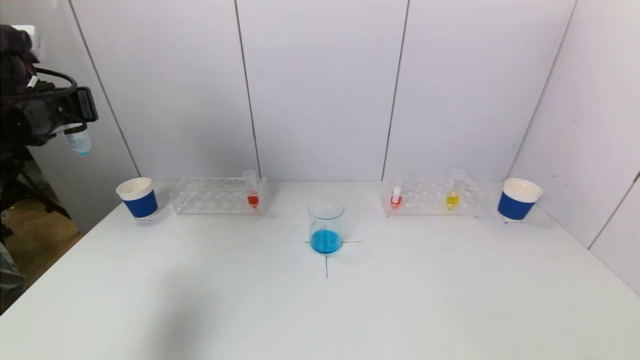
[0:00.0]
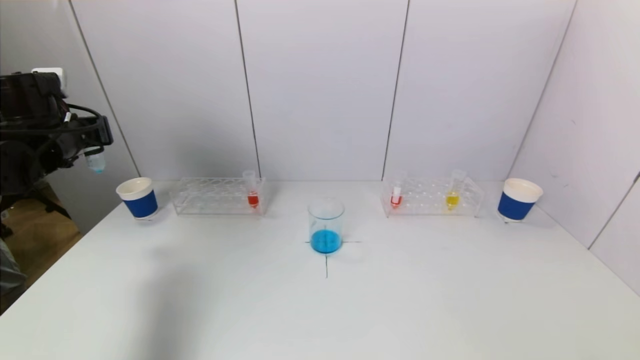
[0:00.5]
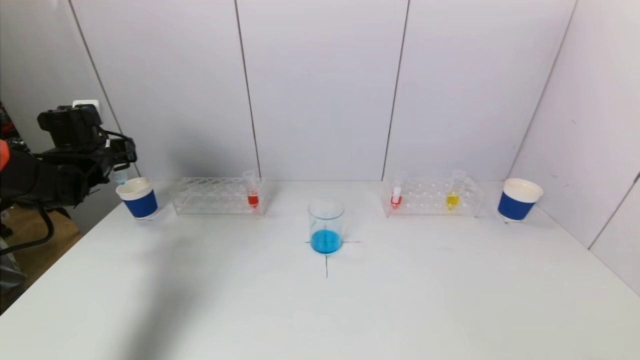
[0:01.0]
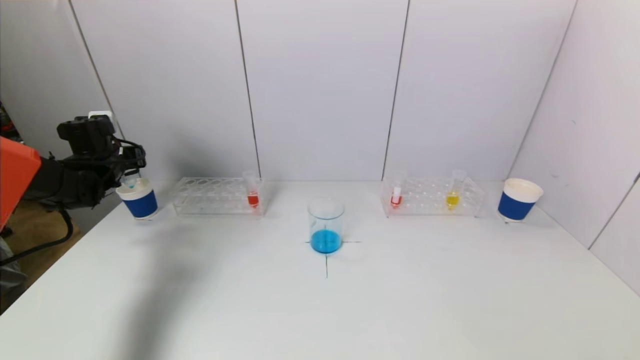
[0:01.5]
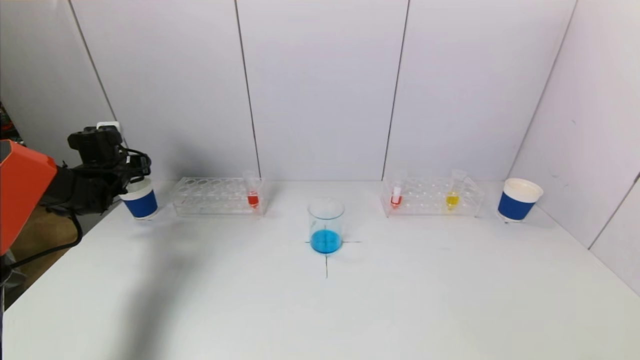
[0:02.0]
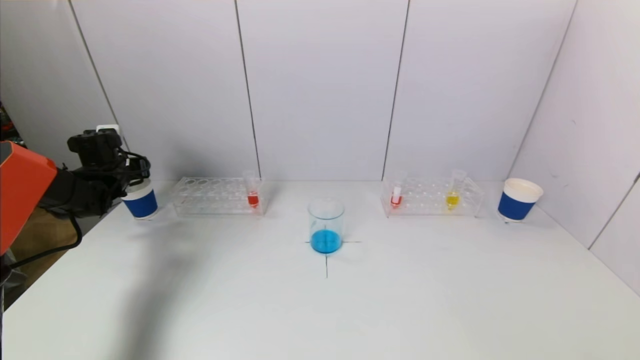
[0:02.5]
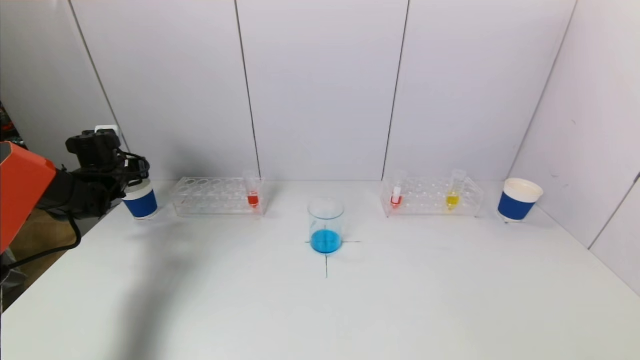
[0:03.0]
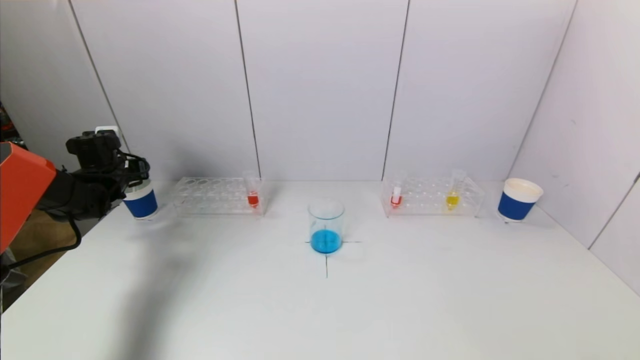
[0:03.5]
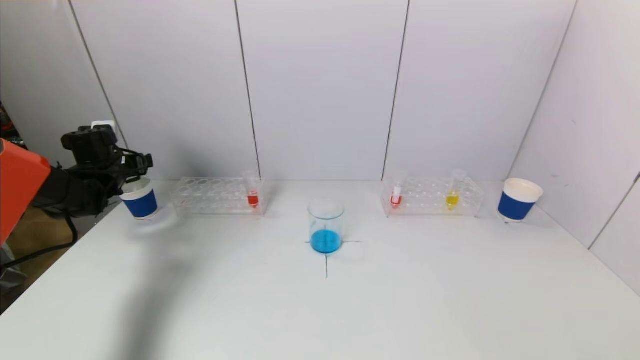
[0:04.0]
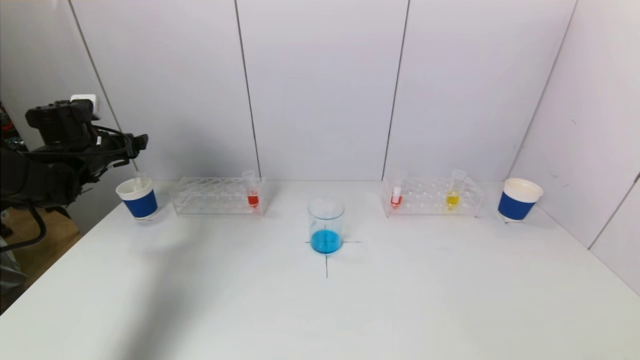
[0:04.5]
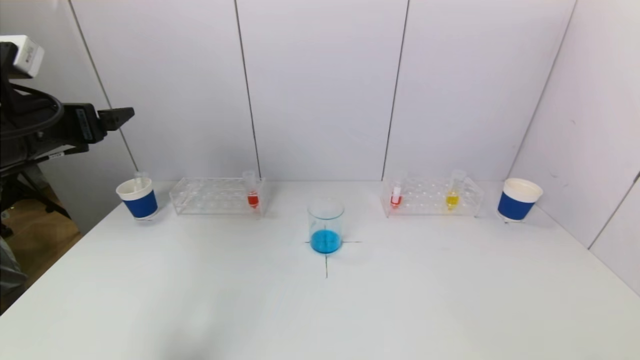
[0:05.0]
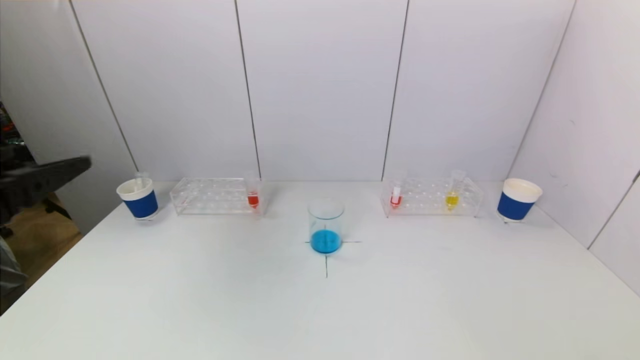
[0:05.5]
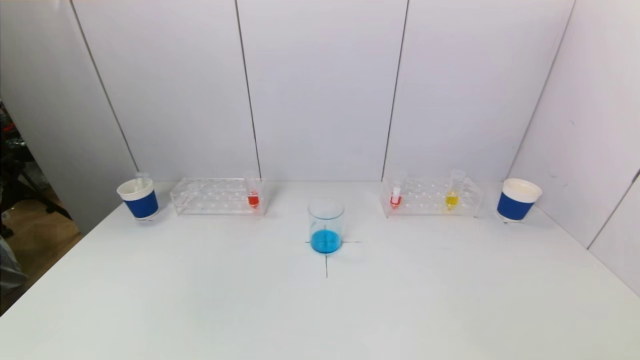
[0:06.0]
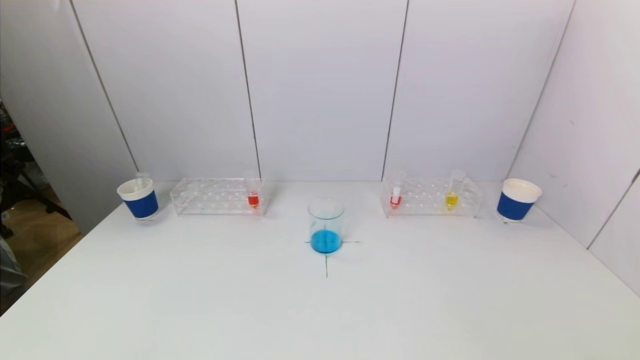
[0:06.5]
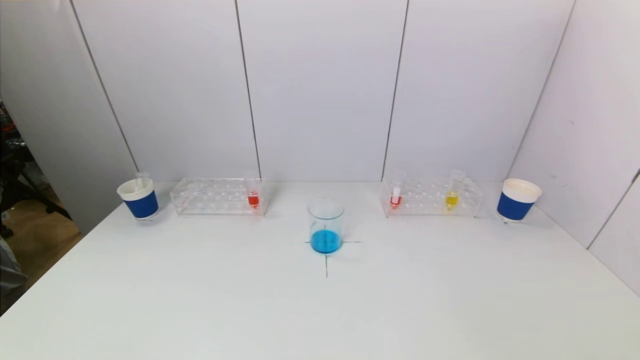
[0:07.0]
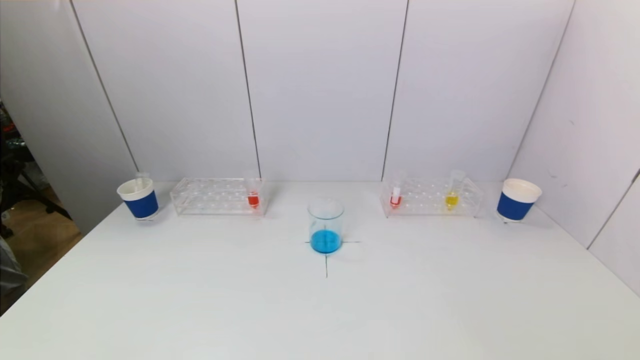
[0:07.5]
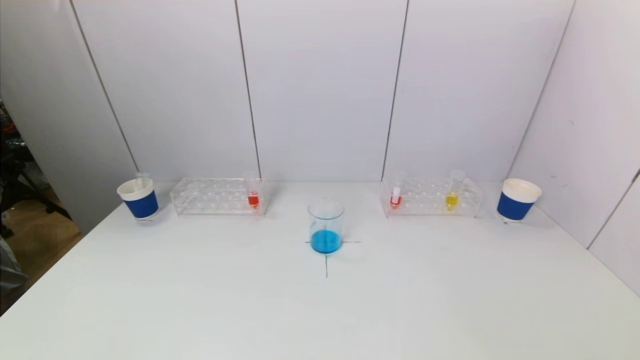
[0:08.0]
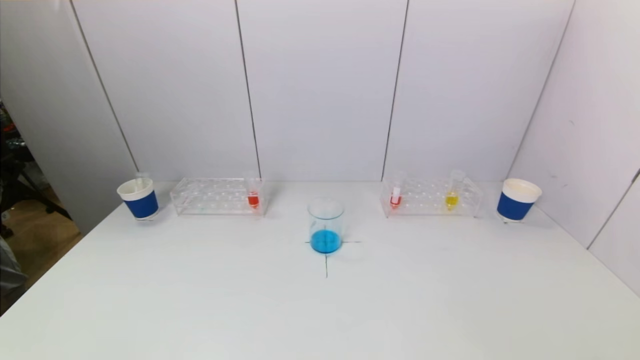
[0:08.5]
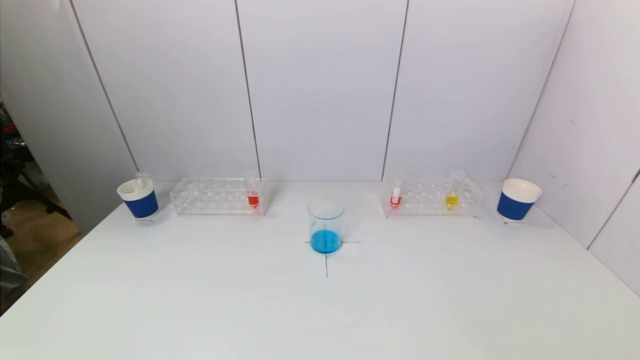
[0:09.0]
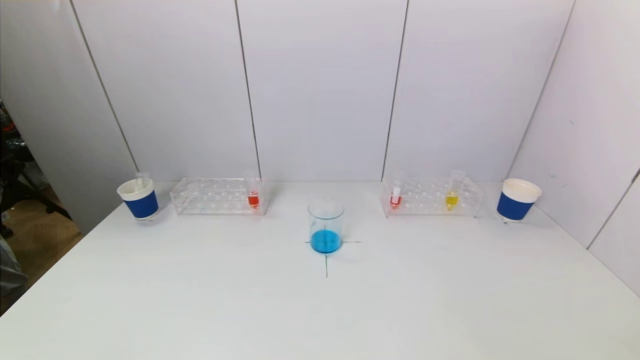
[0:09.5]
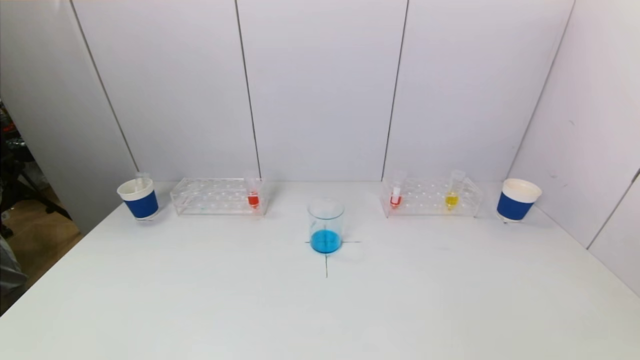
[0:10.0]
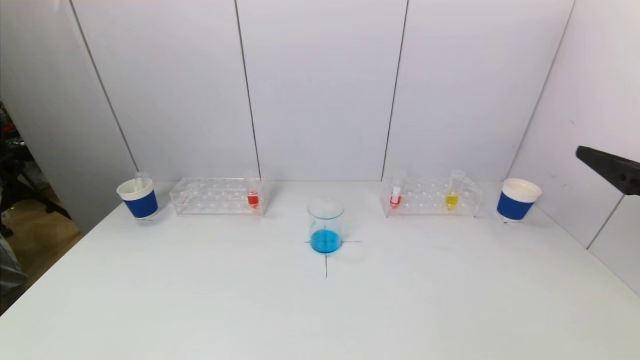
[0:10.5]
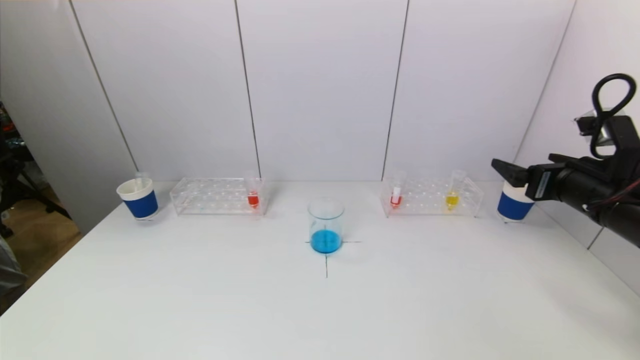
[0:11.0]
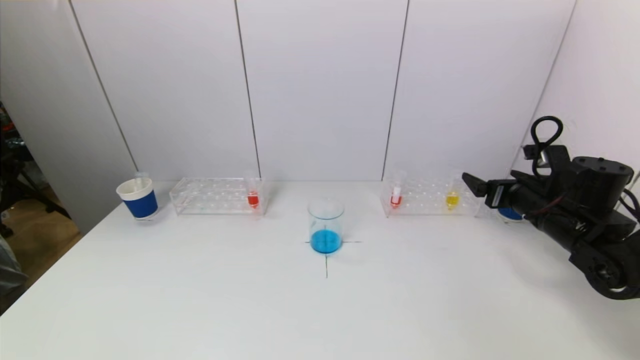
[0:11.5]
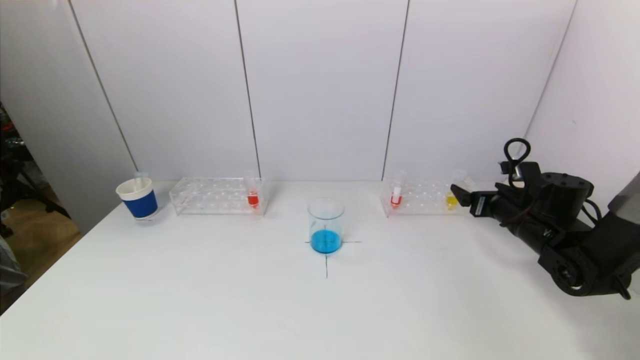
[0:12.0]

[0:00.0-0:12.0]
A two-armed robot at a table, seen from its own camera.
Task of the whole recording: pick up a test tube with pigment on left test tube rack and a test tube with pigment on right test tube rack by grippers and pour them into the beaker.
Step, 0:00.0 to 0:04.0: Place the test tube into the paper cup with the left gripper.
0:00.0 to 0:02.0: The left gripper goes roughly 20 cm downward and forward.
0:02.0 to 0:04.0: The left gripper opens up.
0:04.0 to 0:06.0: The left gripper heads backward, covering approximately 40 cm.
0:10.0 to 0:12.0: The right gripper moves forward and downward, about 35 cm.

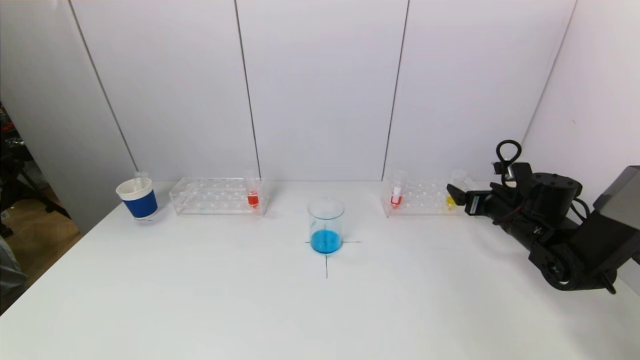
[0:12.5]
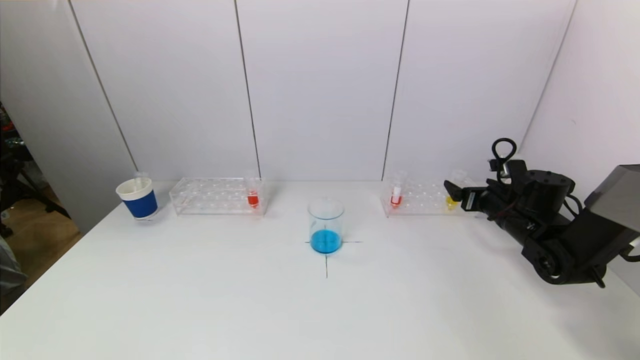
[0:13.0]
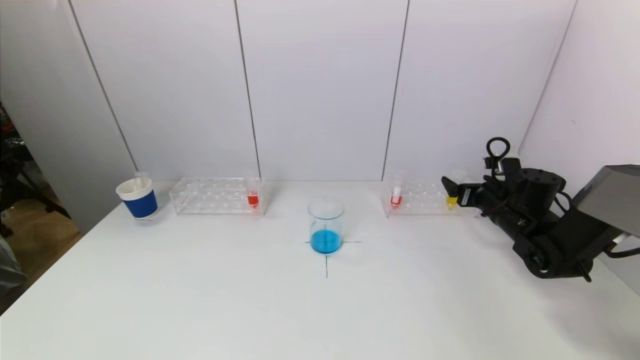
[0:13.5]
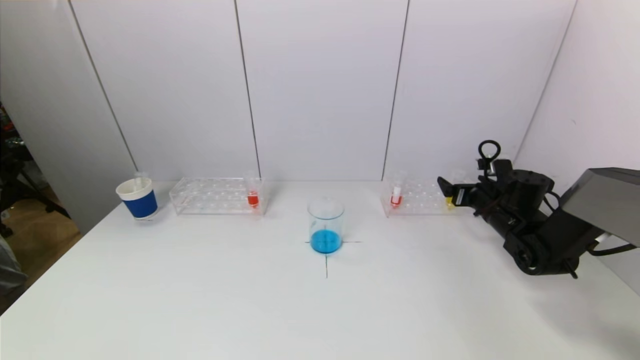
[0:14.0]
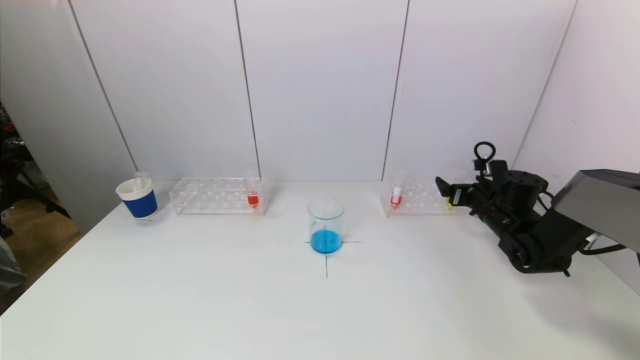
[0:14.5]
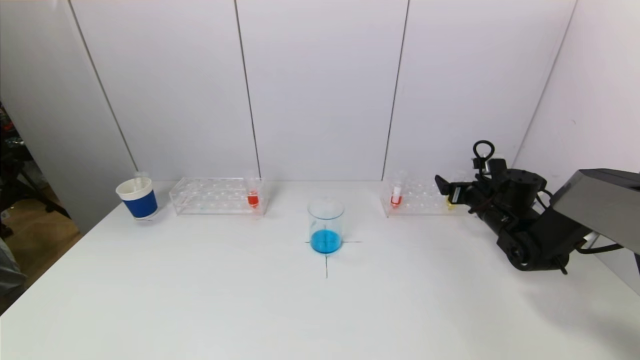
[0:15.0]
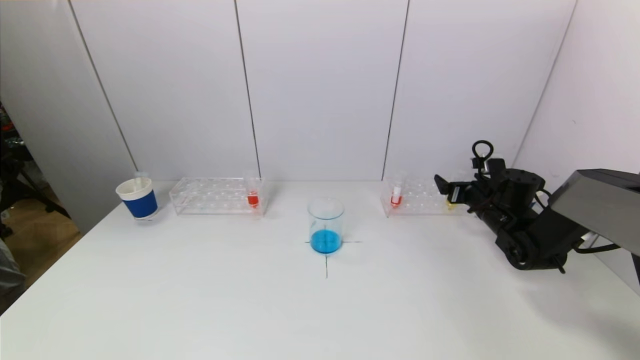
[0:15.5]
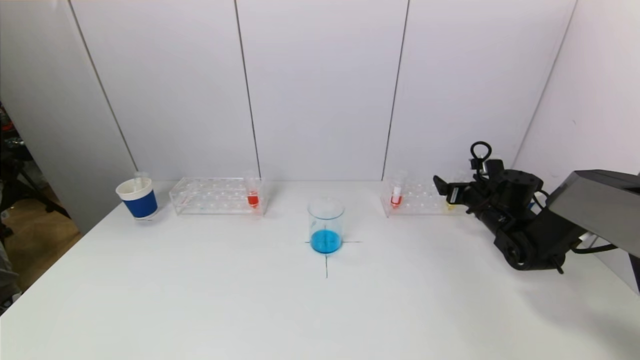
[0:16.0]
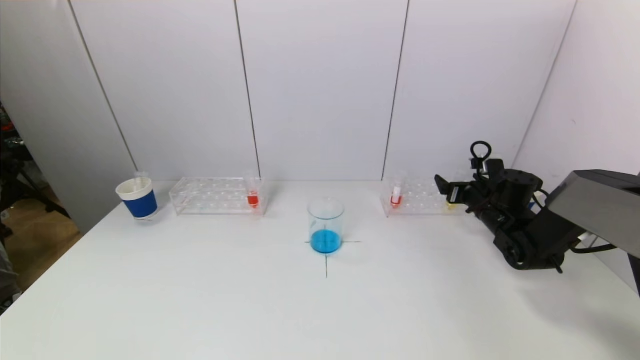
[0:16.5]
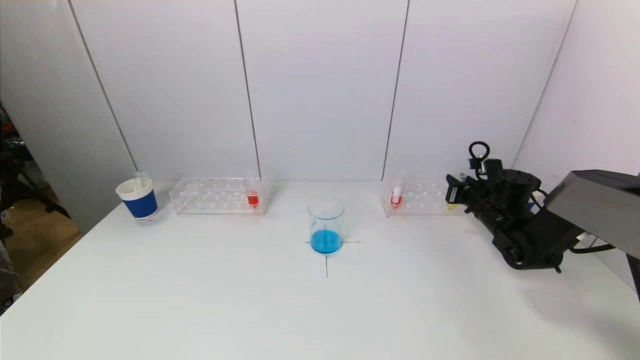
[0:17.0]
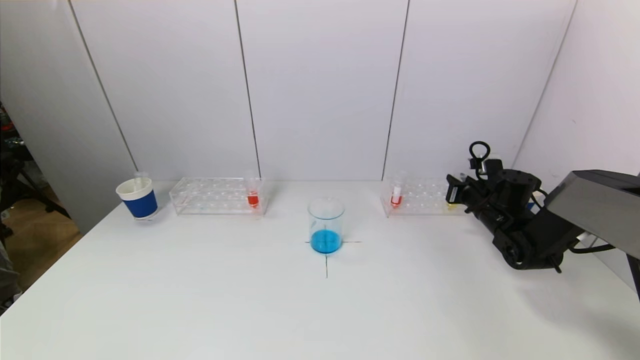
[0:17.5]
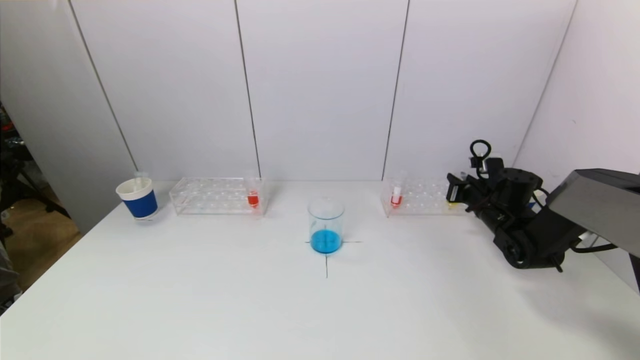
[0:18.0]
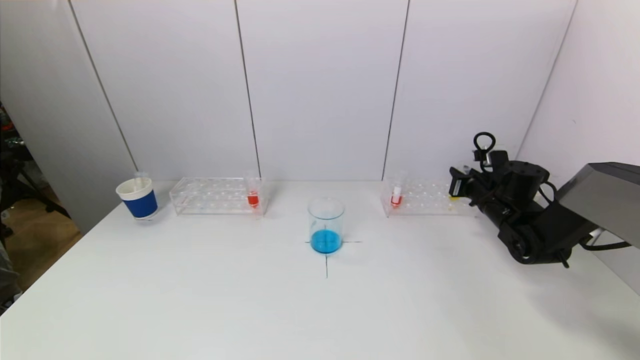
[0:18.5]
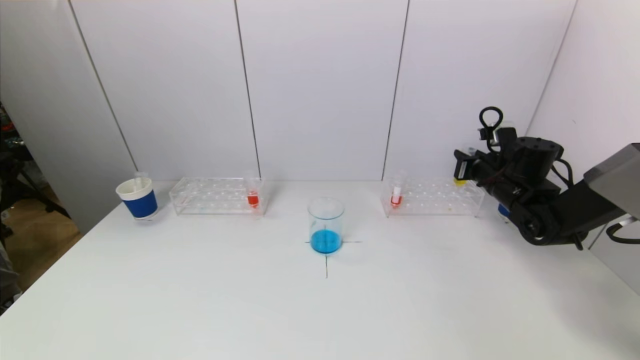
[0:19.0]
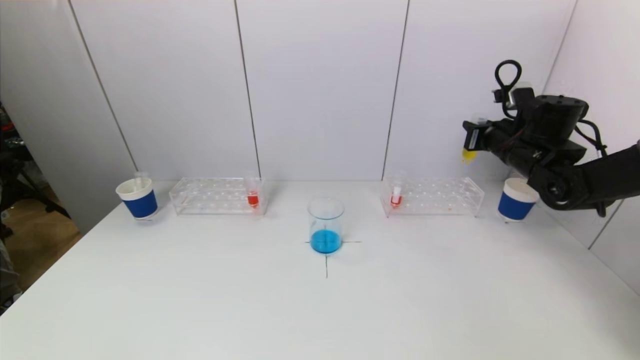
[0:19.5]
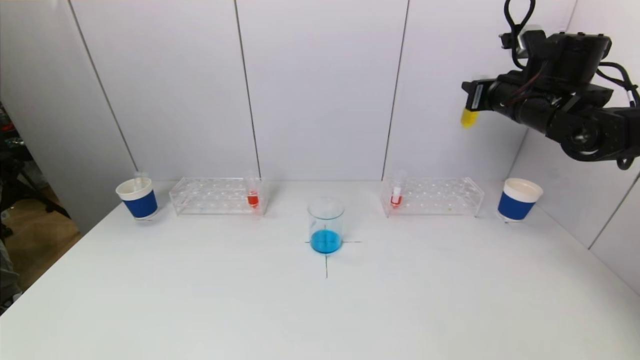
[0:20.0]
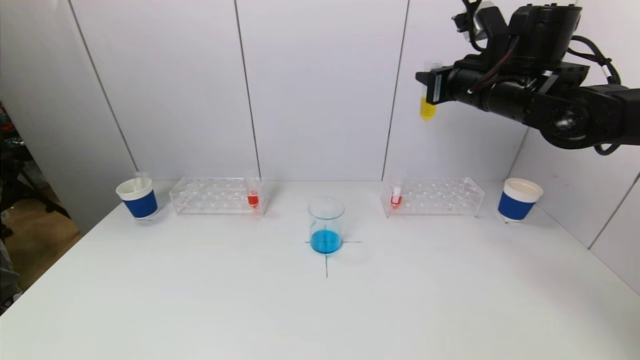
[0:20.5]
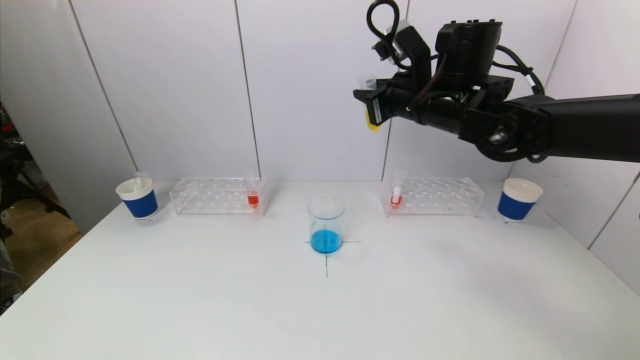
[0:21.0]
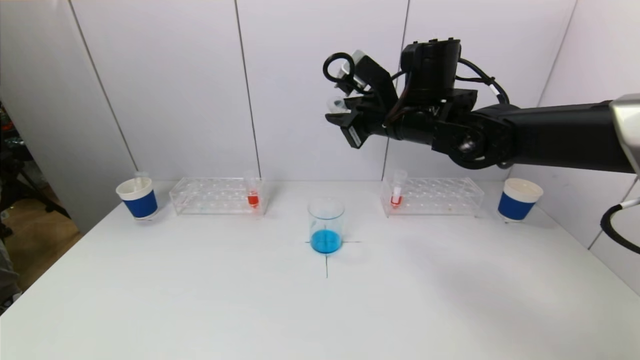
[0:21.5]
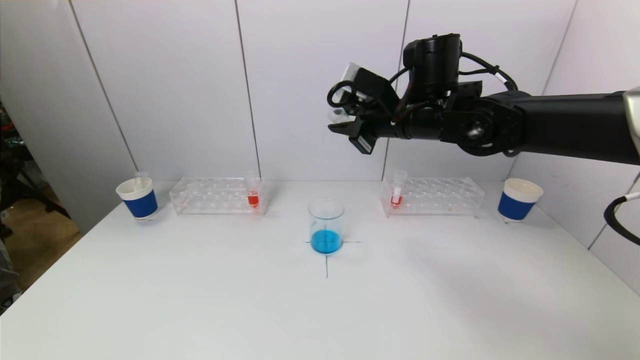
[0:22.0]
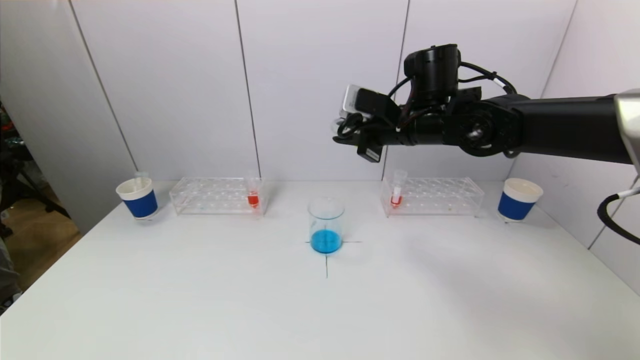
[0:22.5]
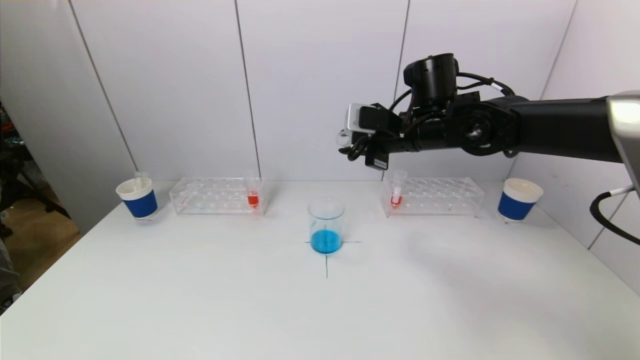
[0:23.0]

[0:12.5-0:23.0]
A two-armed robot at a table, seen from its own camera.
Task of the whole recording: pick up a test tube with pigment on left test tube rack and a test tube with pigment on right test tube rack by grippers and pour them into the beaker.
Step, 0:12.5 to 0:17.0: Grasp the yellow reagent with the right gripper.
0:12.5 to 0:14.5: The right gripper is displaced forward by roughly 5 cm.
0:14.5 to 0:16.5: Both grippers stay put.
0:16.5 to 0:19.0: The right gripper travels upward by approximately 5 cm, and closes its fingers.
0:19.0 to 0:21.0: The right gripper is displaced to the left and upward by some 25 cm.
